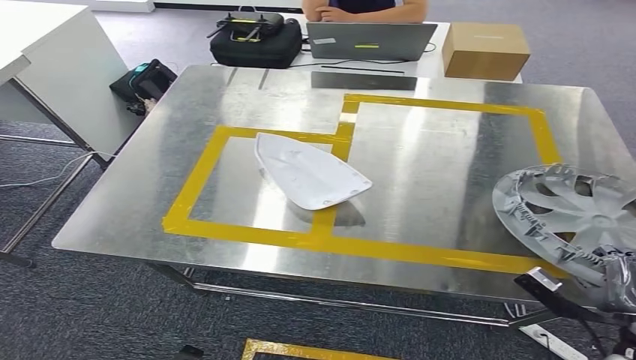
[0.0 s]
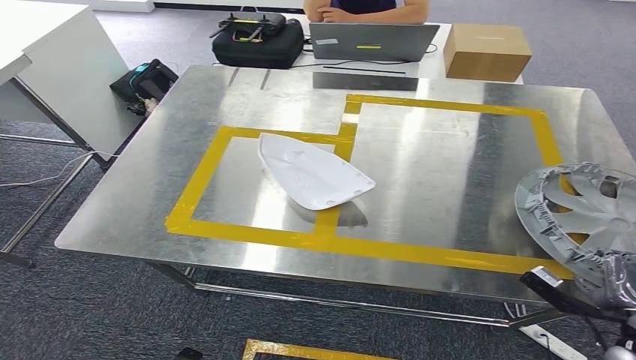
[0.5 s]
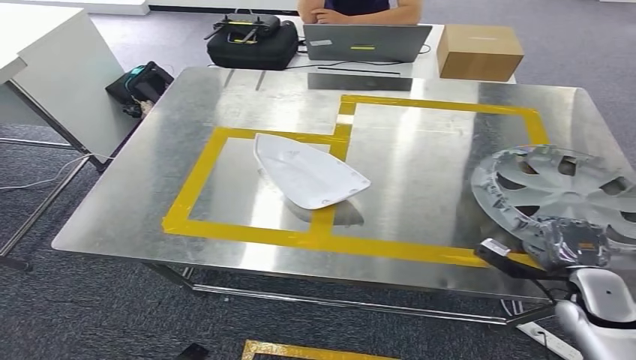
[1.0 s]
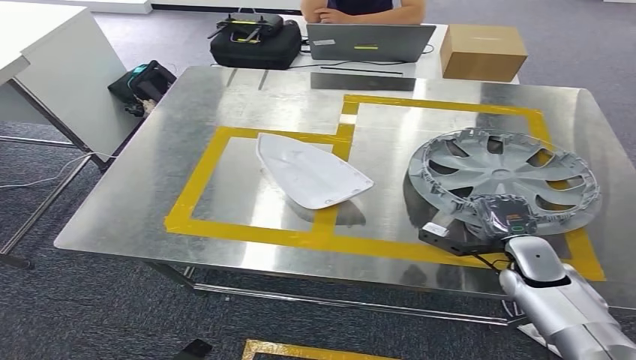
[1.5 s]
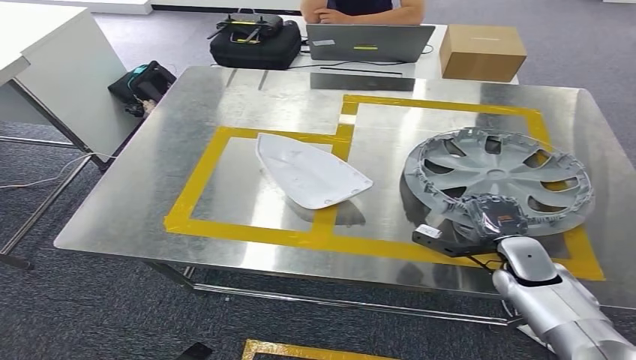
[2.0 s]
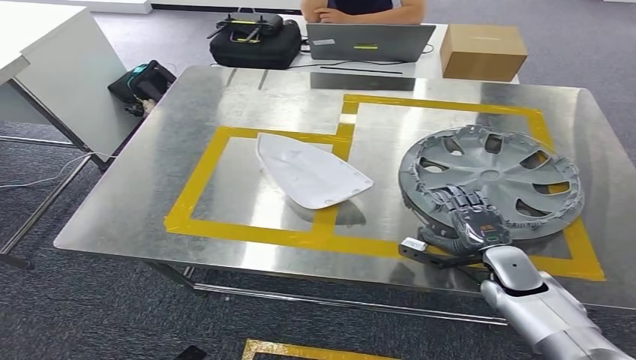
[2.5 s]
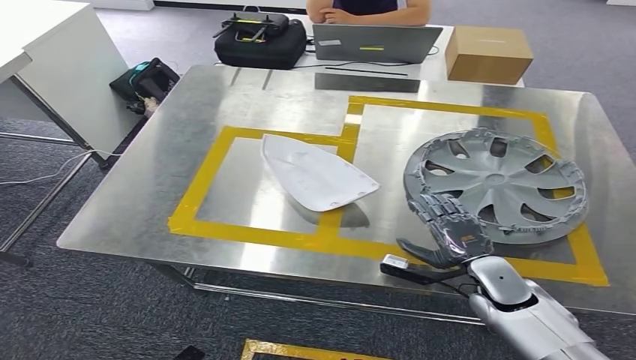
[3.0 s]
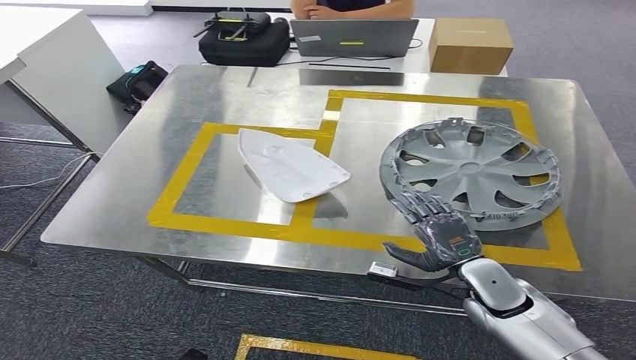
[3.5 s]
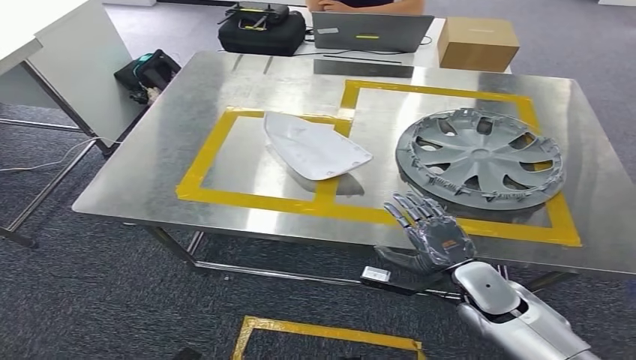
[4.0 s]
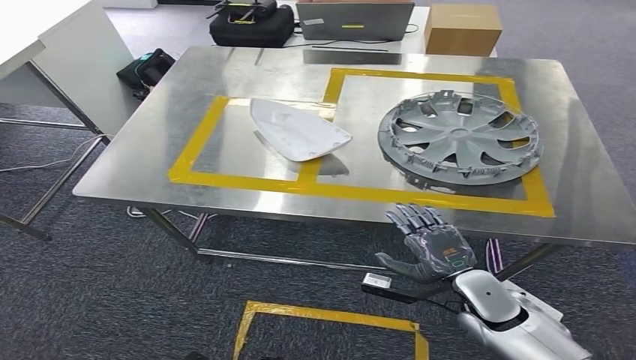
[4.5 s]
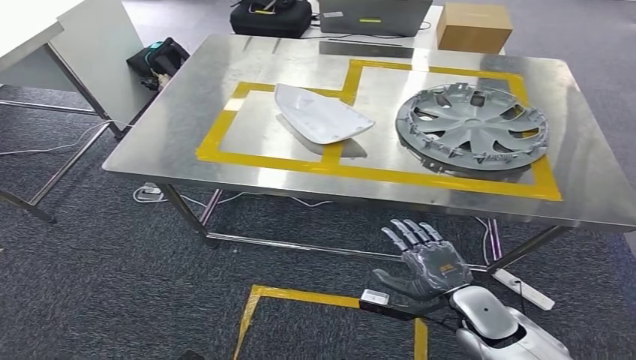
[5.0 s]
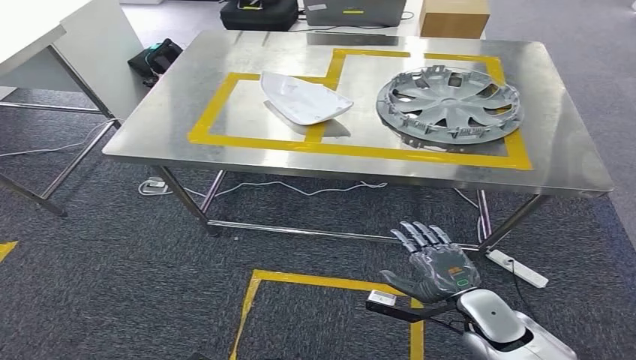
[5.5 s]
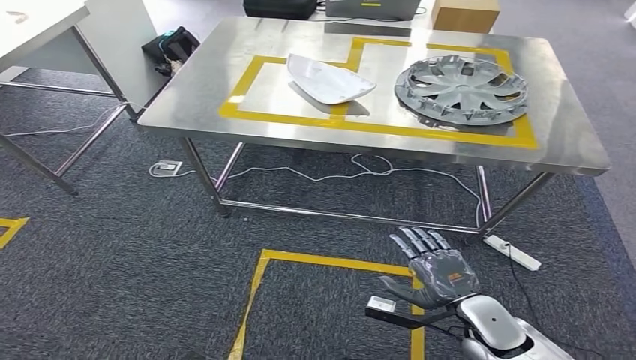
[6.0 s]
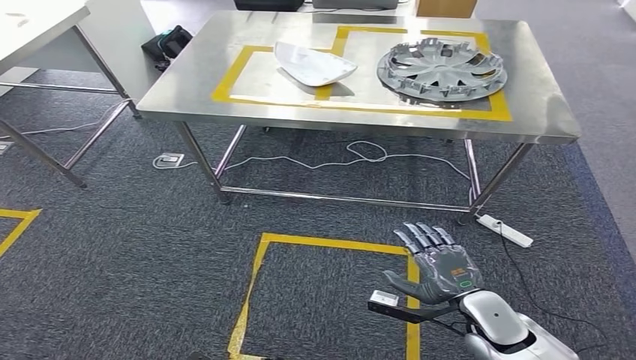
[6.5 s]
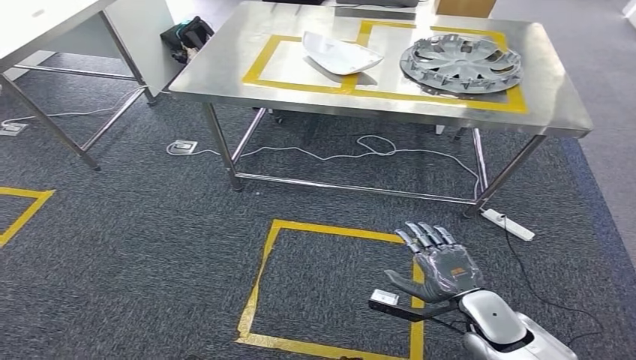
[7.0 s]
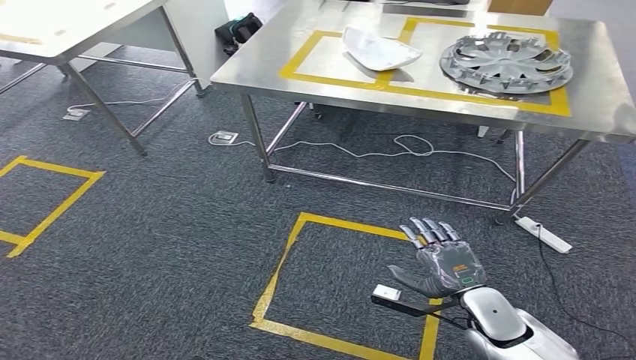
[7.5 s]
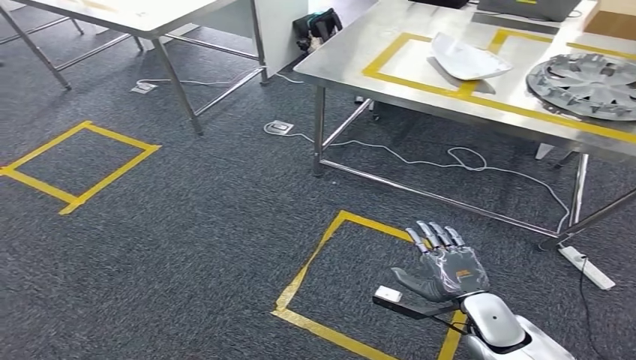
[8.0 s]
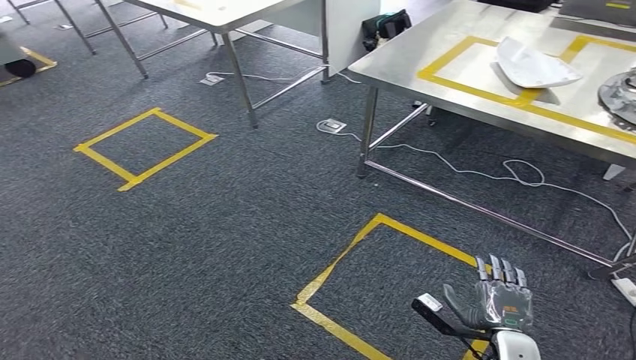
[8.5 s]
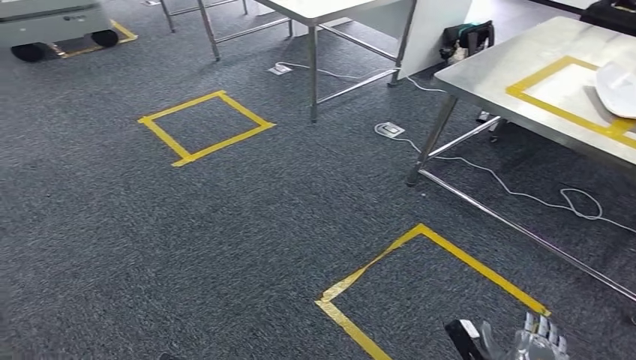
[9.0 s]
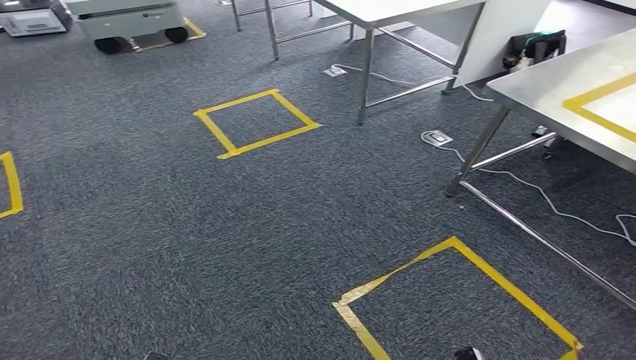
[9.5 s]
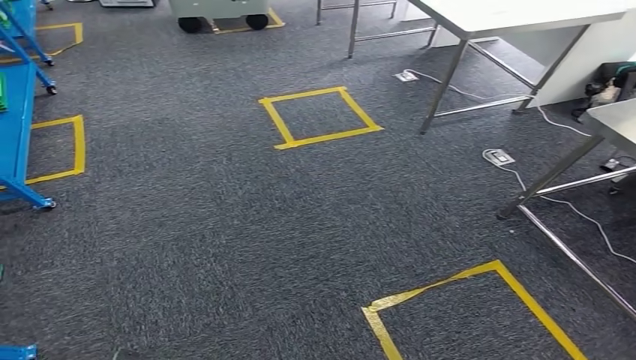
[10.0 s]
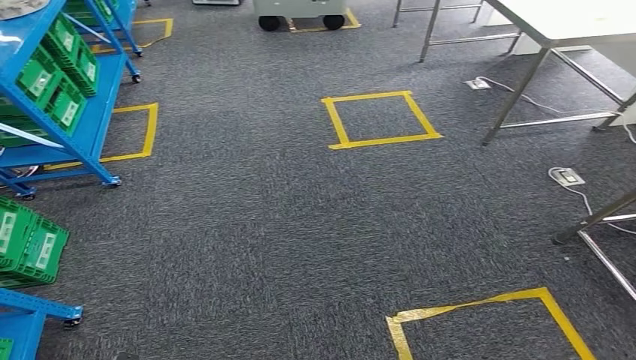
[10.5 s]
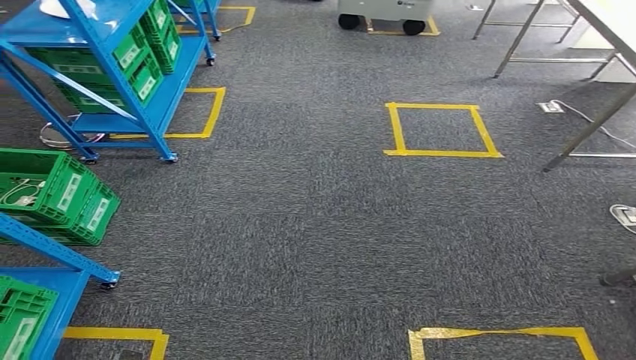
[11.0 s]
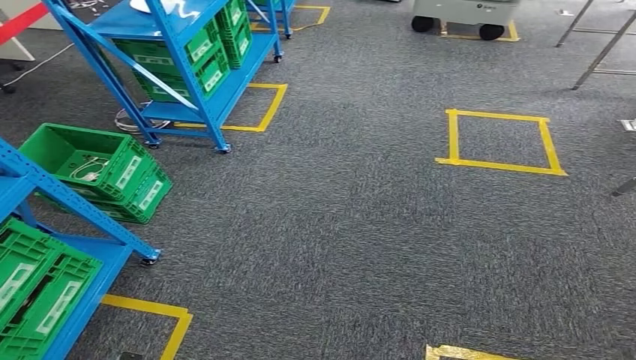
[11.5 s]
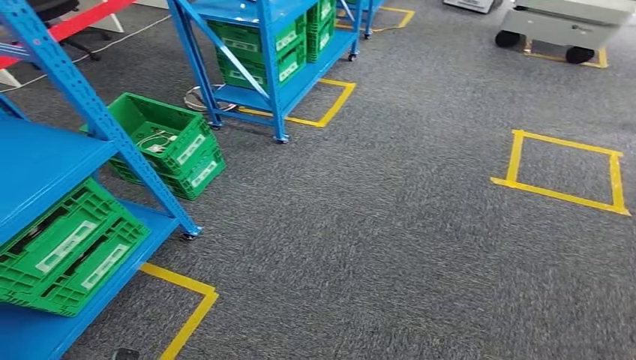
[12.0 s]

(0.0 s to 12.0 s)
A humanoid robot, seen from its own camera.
Step, 0.0 s - 5.0 s: Insert the small component into the corresponding slot on the workbench.
0.0 s - 2.0 s: The right hand heads forward and to the left, covering roughly 20 cm.

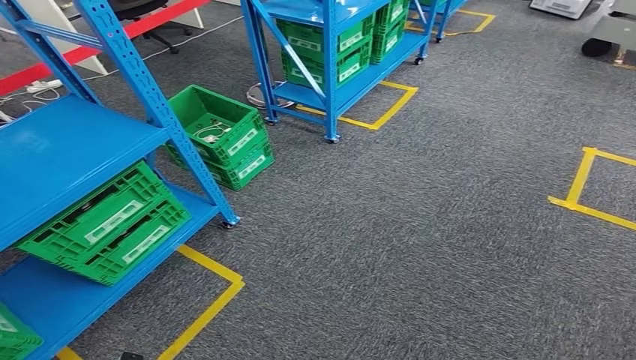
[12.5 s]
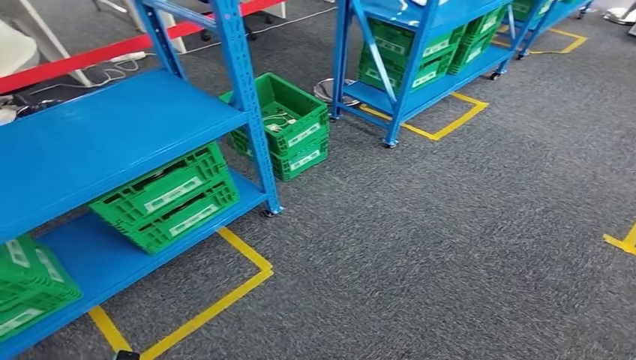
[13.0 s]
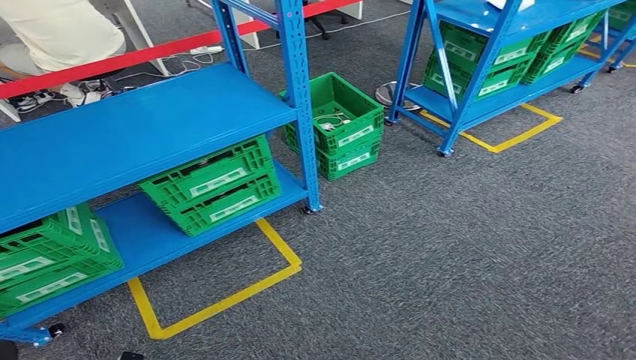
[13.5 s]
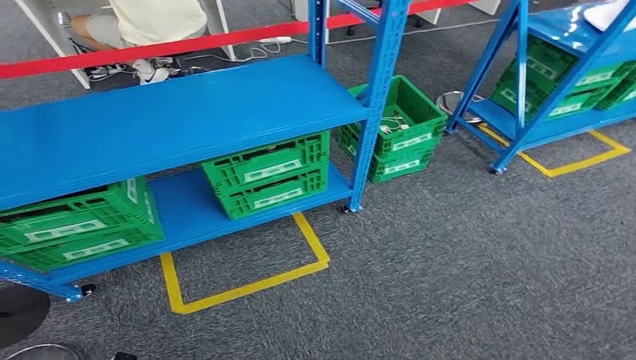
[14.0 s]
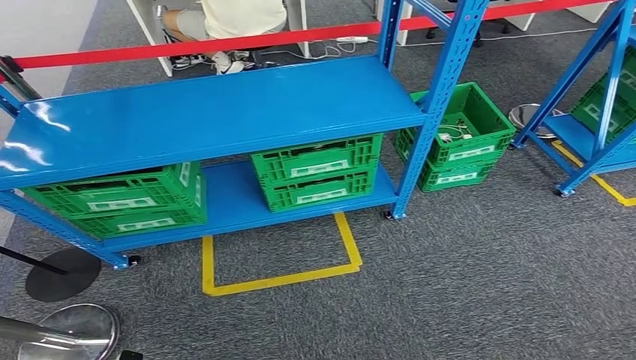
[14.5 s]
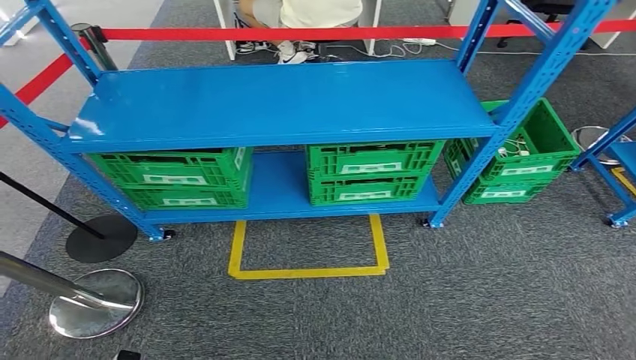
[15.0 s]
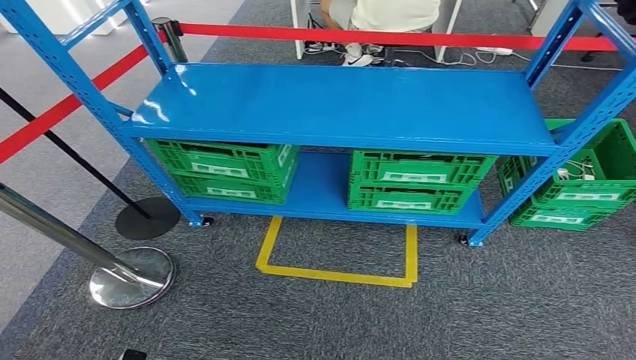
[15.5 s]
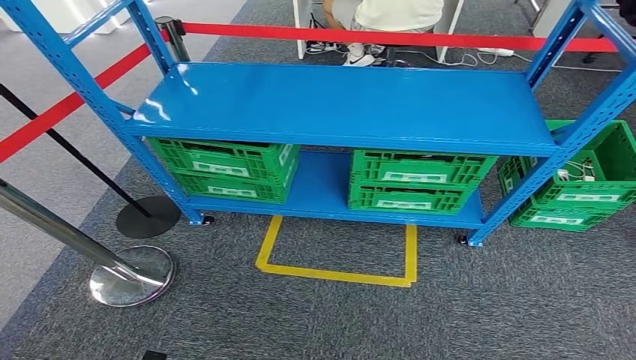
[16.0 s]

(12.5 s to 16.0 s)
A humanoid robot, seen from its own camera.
Step, 12.5 s - 16.0 s: Move to the initial position at the workbench.
